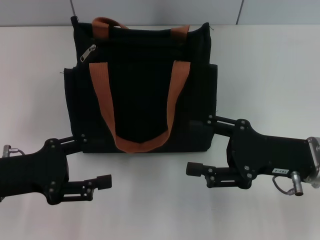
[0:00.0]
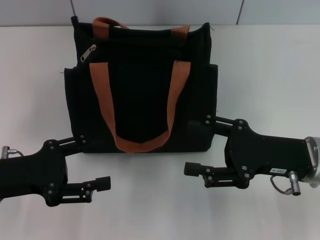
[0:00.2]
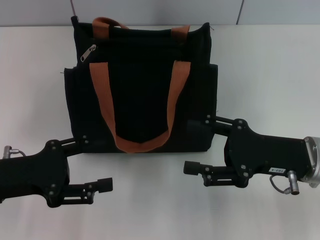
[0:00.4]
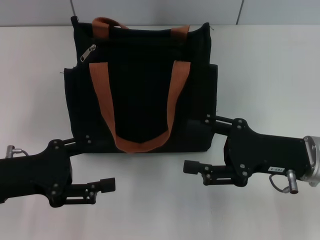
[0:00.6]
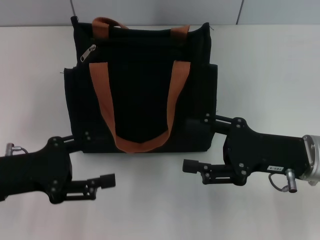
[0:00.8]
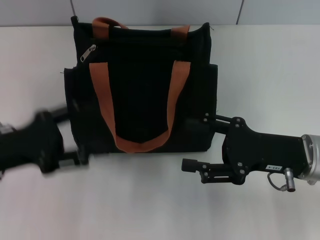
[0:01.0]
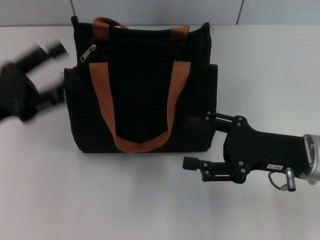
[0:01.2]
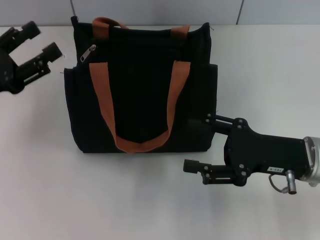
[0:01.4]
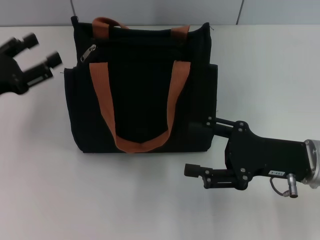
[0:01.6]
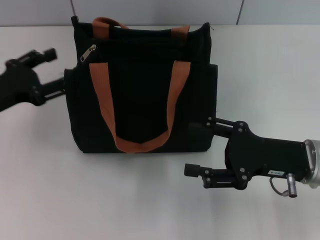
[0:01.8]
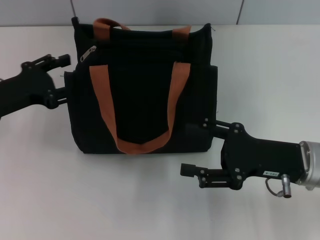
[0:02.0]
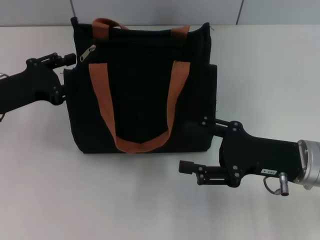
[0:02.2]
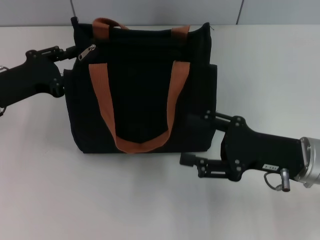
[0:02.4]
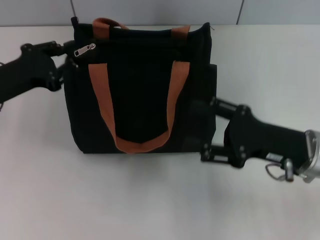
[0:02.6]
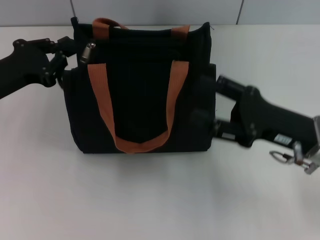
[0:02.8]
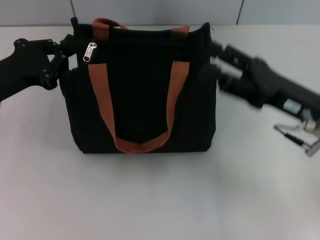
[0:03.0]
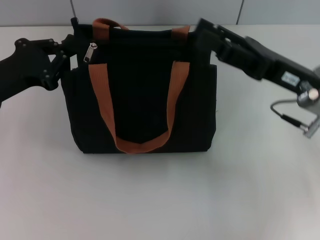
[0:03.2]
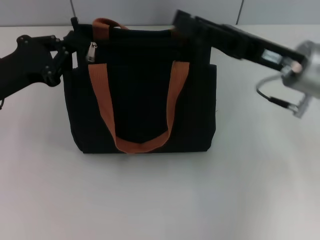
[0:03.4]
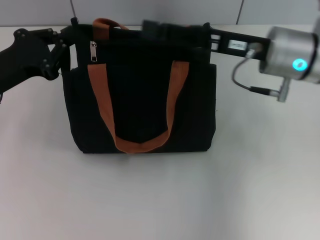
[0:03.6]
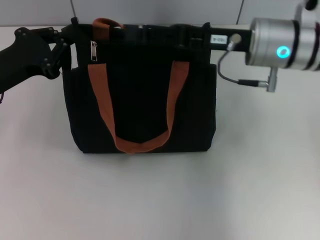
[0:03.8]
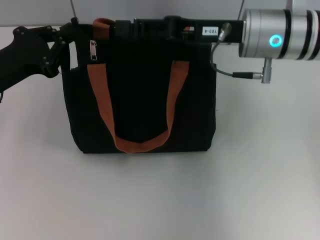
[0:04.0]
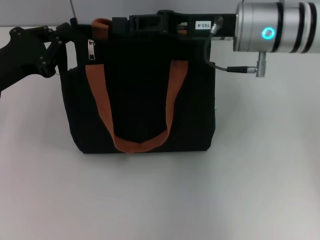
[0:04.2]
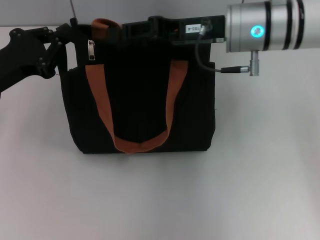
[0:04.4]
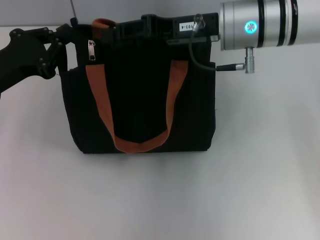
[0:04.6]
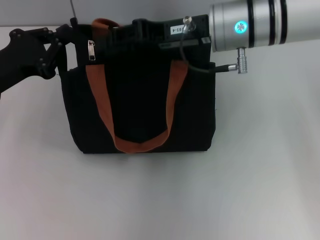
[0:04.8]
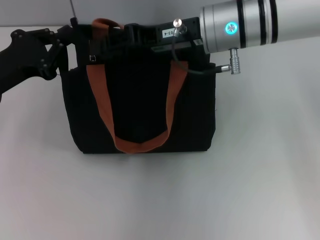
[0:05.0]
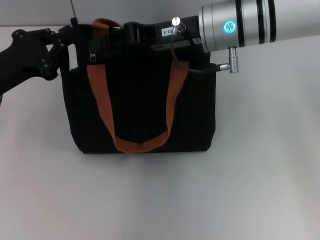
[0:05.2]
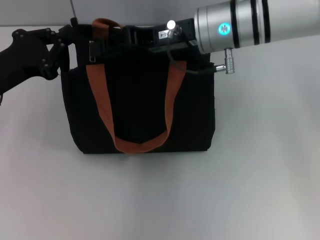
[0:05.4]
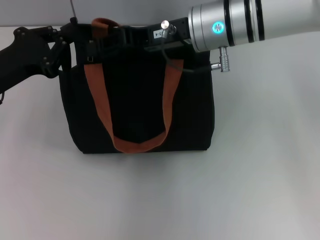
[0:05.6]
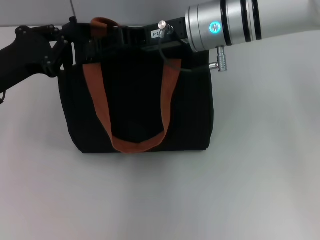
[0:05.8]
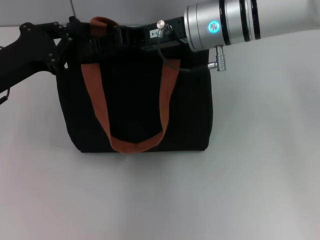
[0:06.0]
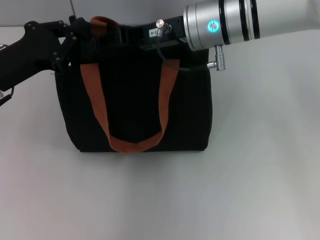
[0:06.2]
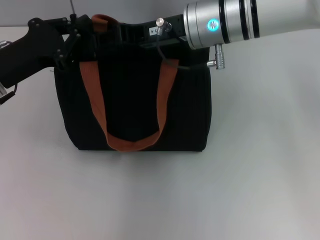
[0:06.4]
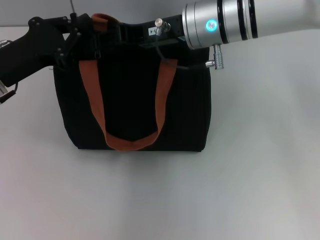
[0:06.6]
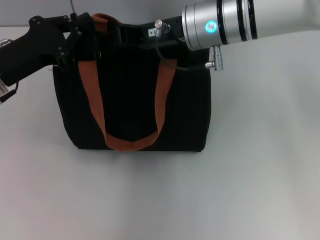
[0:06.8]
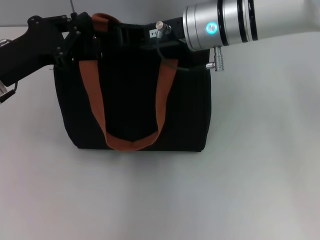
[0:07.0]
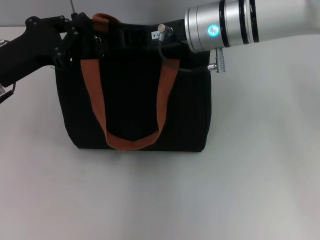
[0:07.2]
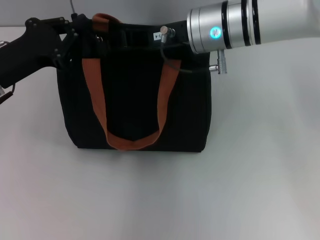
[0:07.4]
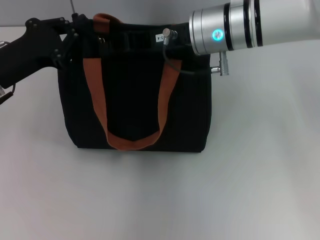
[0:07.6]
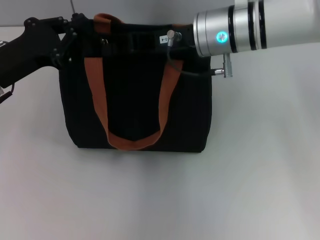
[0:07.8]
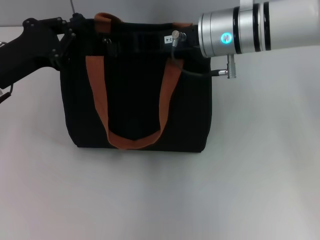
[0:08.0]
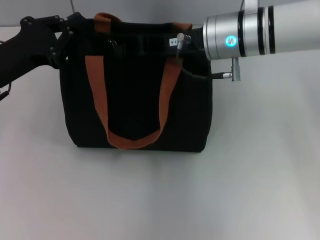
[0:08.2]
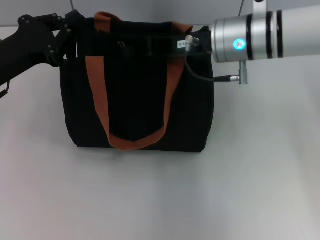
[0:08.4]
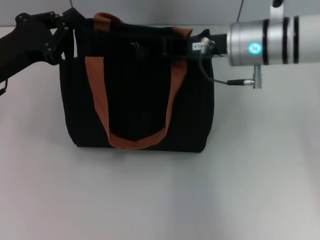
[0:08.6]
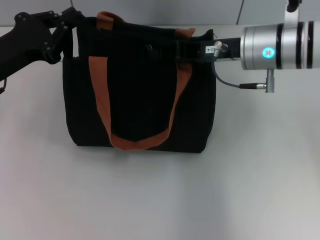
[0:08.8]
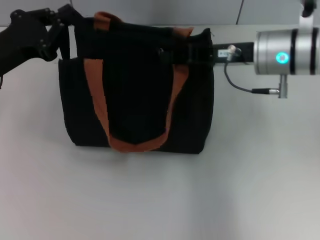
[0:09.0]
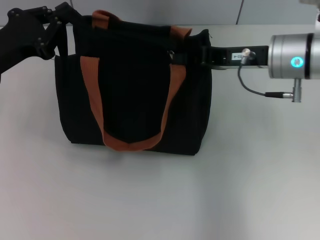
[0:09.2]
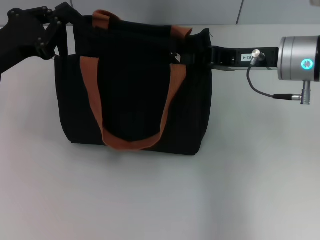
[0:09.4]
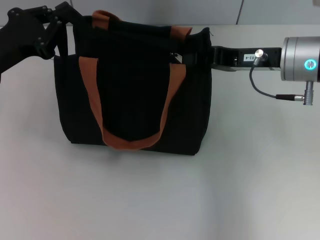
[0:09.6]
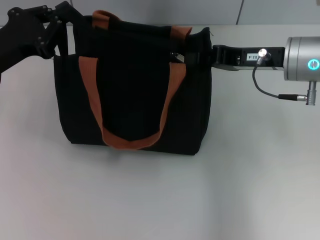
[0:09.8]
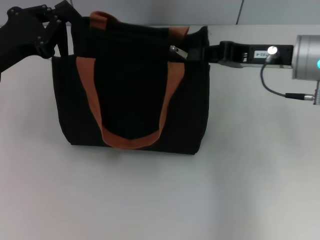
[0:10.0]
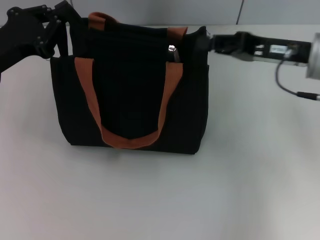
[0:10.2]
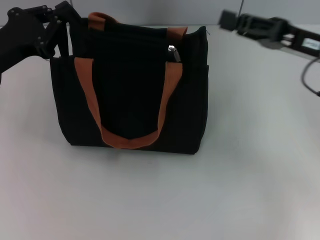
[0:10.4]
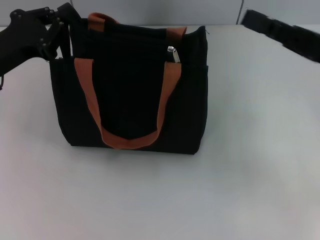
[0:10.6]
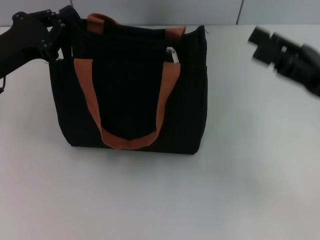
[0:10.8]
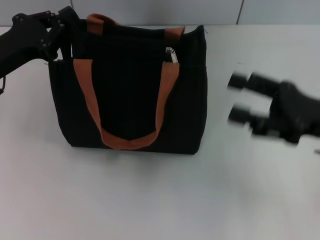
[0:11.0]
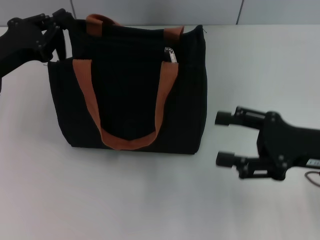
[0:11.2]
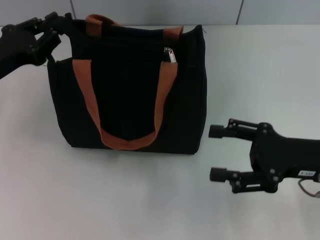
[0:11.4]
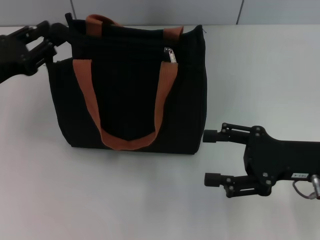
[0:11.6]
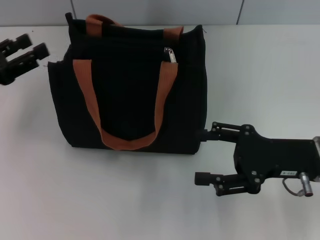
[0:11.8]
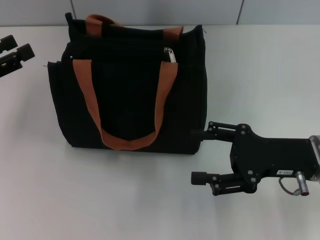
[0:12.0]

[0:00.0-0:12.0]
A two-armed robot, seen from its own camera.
Step, 0:00.0 to 0:09.8: Pull up the zipper with your right hand.
Step, 0:10.2 to 0:11.6: Grab the zipper with your left hand.
0:00.0 to 0:01.6: The left gripper goes about 5 cm forward.
0:01.6 to 0:03.0: The left gripper closes its fingers.
0:03.0 to 0:04.4: The right gripper heads forward, to the left and upward, covering approximately 15 cm, and closes up.
0:04.4 to 0:06.0: The grippers move only a little.
0:06.0 to 0:07.6: The right gripper closes its fingers.
0:07.6 to 0:09.0: The right gripper shifts some 10 cm to the right.
0:09.0 to 0:10.4: The right gripper shifts about 10 cm to the right.
0:10.4 to 0:12.0: The left gripper goes some 5 cm to the left, and opens up. The right gripper moves downward and backward, roughly 10 cm, and opens up.

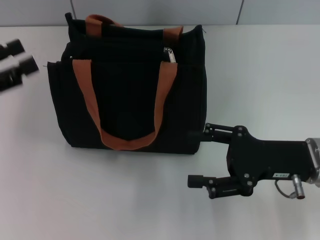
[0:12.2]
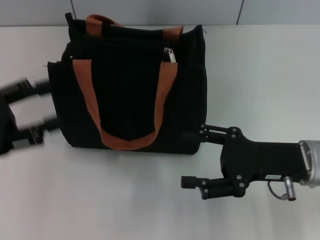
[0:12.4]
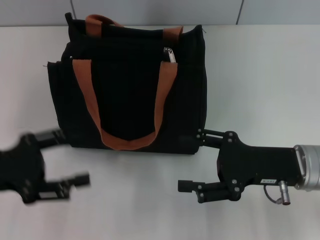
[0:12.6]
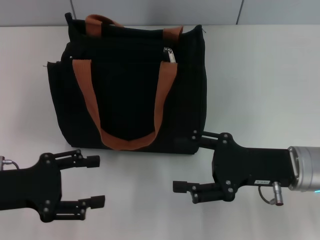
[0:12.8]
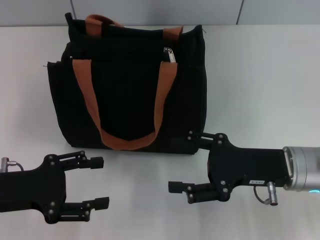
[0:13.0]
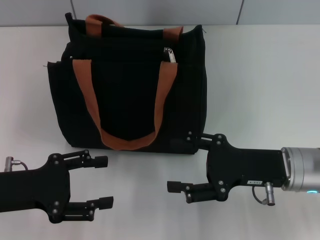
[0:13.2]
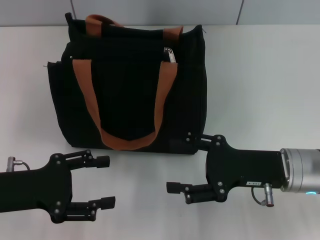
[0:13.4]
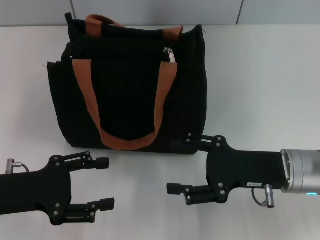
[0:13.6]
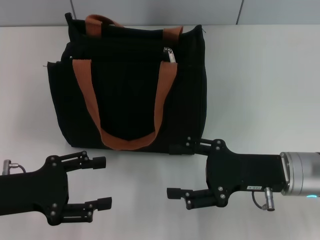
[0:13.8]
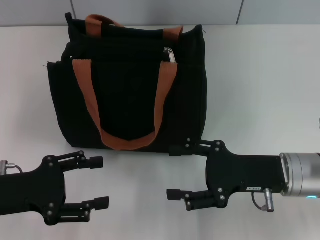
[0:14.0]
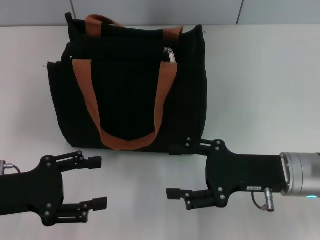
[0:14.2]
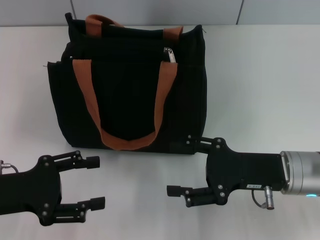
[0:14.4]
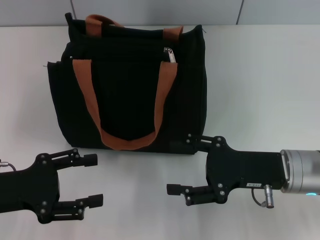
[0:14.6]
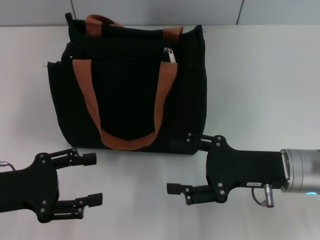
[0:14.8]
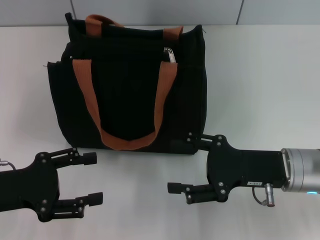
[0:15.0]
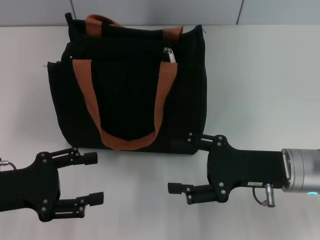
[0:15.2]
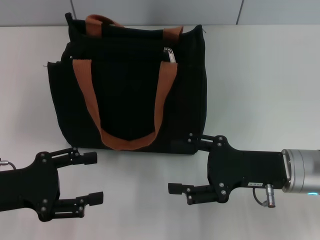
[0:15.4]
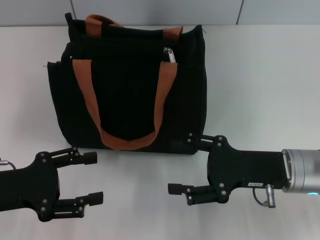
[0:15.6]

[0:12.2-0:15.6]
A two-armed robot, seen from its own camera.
0:12.2 to 0:13.8: The left gripper moves to the right, downward and backward, roughly 10 cm.
0:13.8 to 0:15.6: Both grippers stay put.
